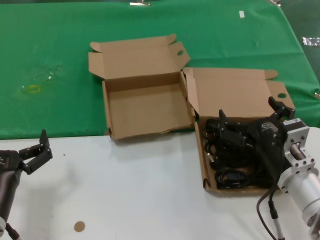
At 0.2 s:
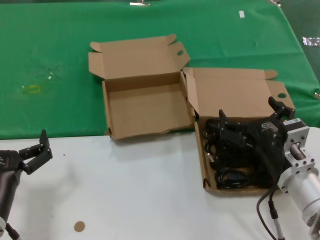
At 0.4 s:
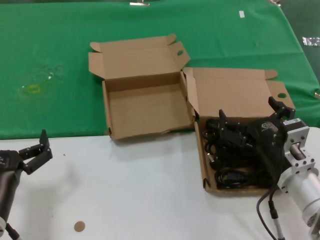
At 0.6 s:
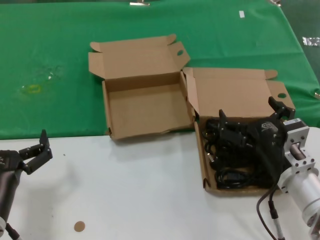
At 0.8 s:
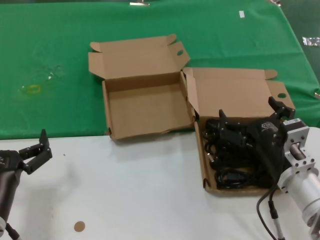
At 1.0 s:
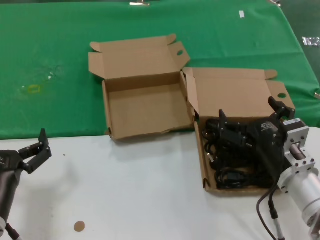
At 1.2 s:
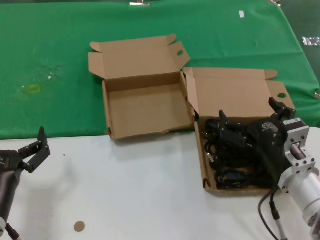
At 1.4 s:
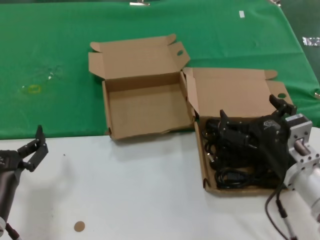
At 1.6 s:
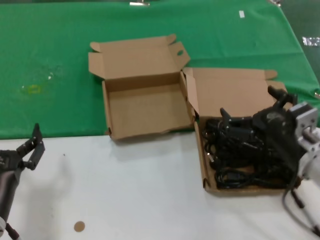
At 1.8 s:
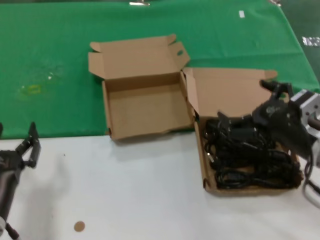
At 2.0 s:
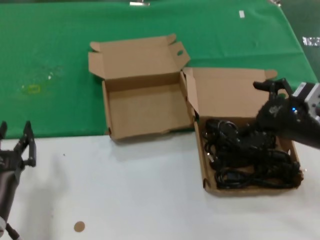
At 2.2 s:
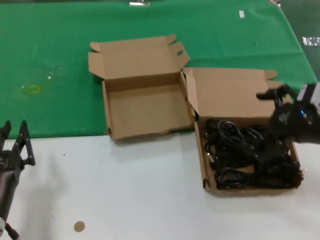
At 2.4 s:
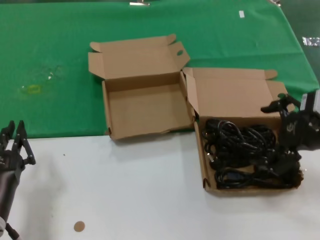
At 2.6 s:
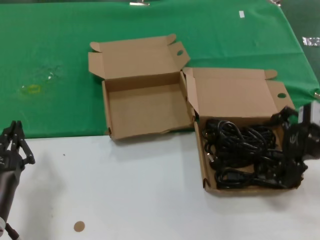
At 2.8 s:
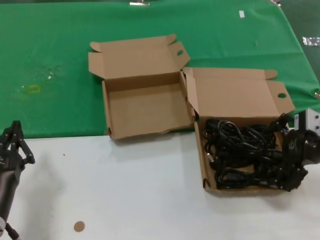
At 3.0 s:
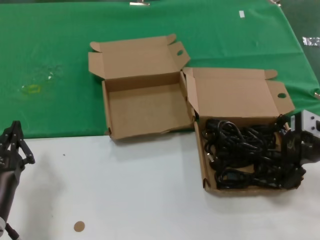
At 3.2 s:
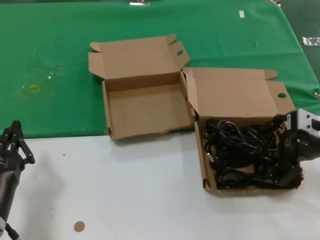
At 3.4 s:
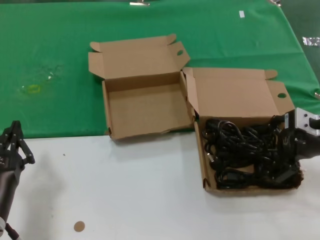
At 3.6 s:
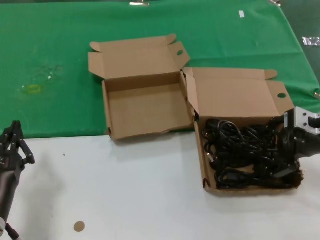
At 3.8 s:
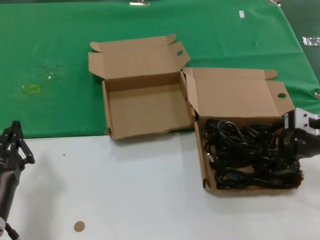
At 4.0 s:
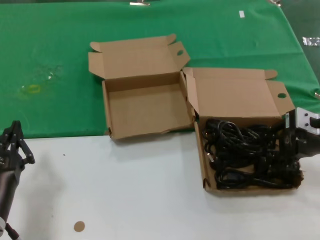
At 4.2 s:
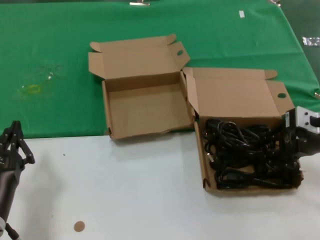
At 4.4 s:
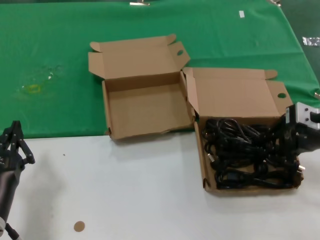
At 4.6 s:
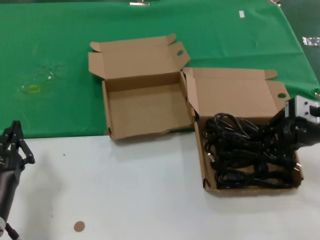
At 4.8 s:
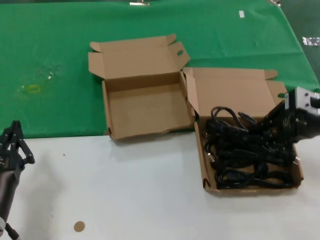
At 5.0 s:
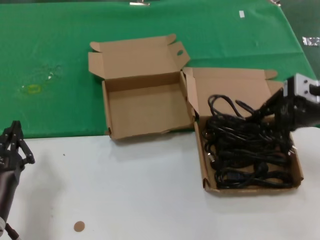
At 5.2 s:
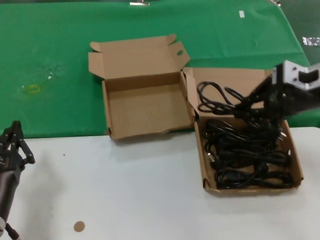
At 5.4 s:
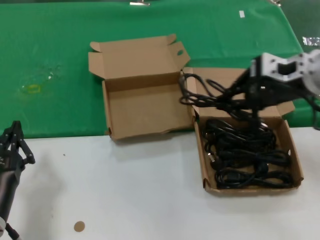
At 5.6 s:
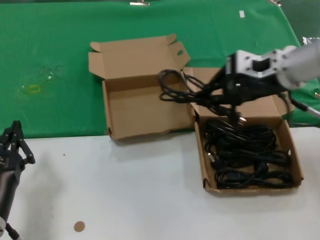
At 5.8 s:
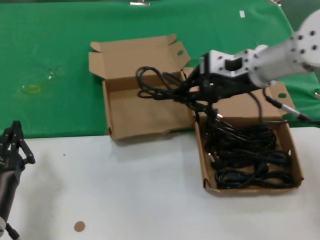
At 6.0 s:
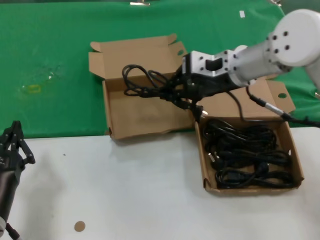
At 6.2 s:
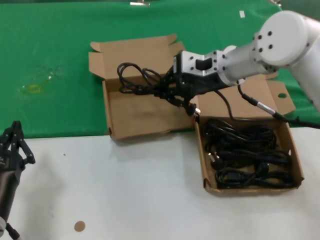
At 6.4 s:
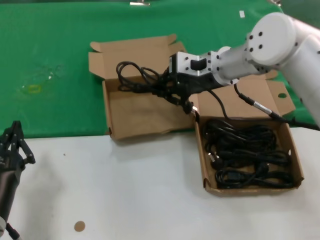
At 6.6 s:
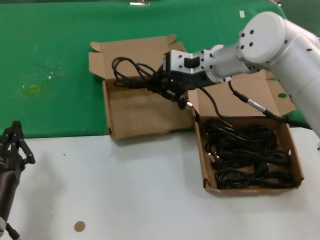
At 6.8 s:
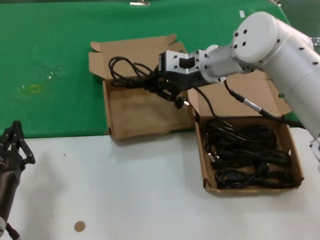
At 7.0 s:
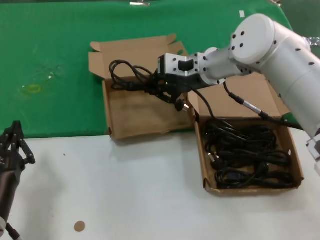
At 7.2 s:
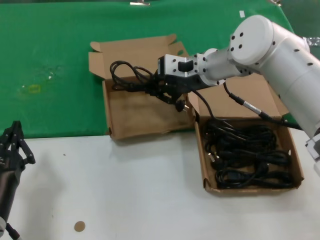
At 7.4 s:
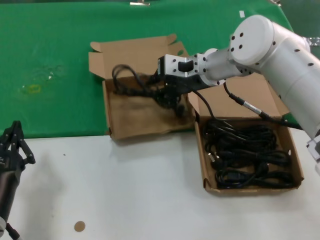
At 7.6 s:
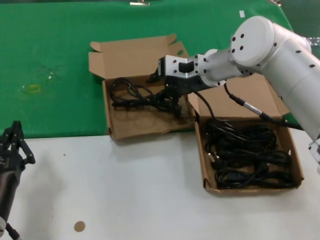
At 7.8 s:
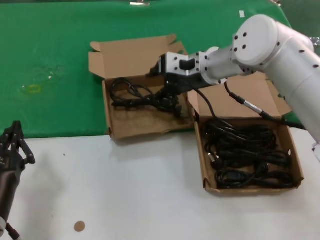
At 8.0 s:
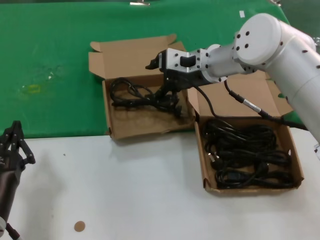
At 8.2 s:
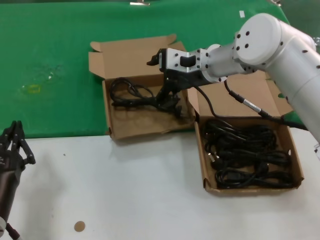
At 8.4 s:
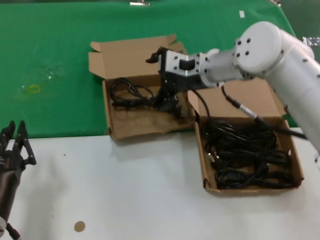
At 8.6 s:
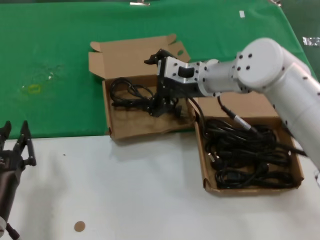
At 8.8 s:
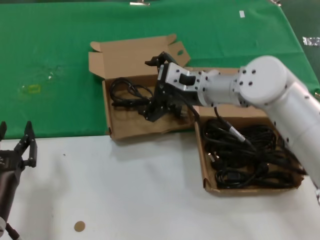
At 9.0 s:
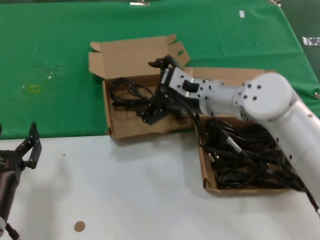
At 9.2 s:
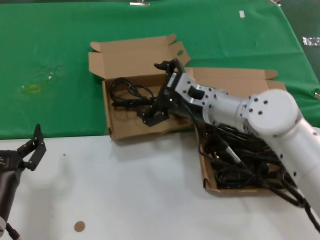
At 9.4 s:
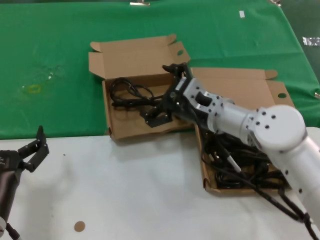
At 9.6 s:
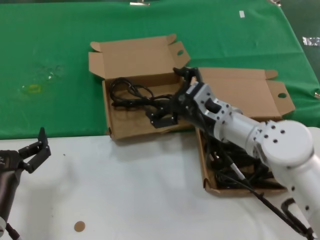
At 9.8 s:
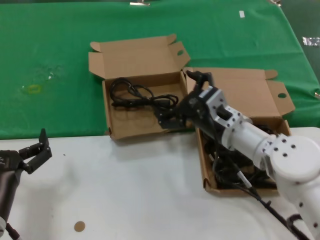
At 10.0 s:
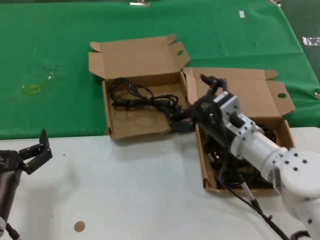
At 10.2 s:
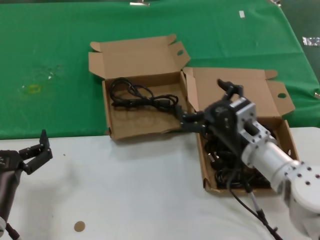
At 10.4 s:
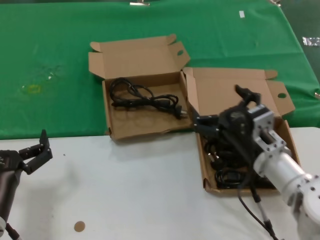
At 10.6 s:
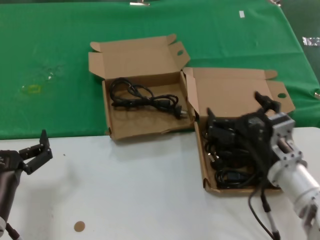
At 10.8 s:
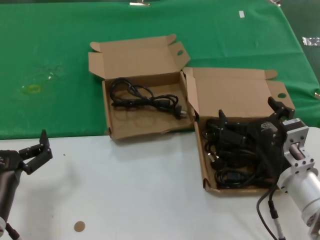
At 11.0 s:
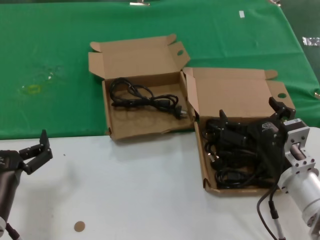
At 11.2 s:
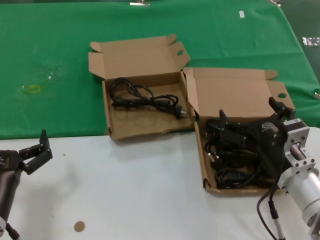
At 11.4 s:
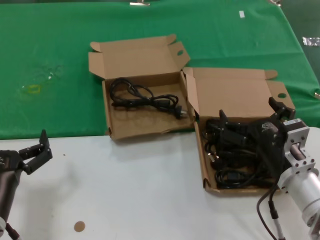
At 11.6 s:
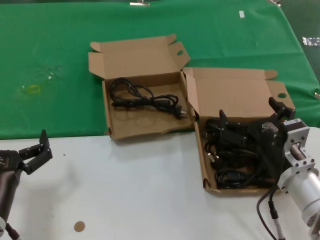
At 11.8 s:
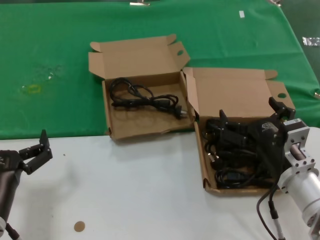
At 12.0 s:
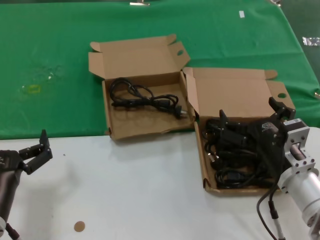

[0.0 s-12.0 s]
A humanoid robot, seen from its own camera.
Task of the whole recording: take the parts from the box containing them and put them into an empty box.
Step, 0.0 to 4.2 s: Grasp the data cable.
Step, 4.4 to 7.4 s: Place the data cable in the another box.
0.0 to 1.6 s: There are only small adjustments of the hands.
1.6 to 3.0 s: The right hand travels upward, to the right and forward by approximately 15 cm.
3.0 to 4.4 s: The hands make only small movements.
4.4 to 6.0 s: The right hand heads to the left, forward and upward, covering roughly 20 cm.
6.0 to 7.6 s: The right hand travels forward by some 5 cm.
7.6 to 9.0 s: The right hand shifts roughly 5 cm downward.
9.0 to 10.4 s: The right hand is displaced backward, downward and to the right by about 20 cm.
10.4 to 12.0 s: The right hand changes place by some 5 cm.

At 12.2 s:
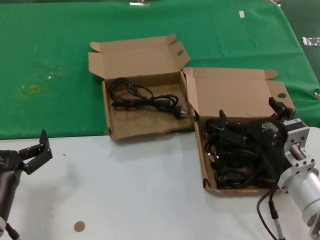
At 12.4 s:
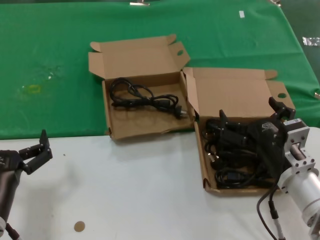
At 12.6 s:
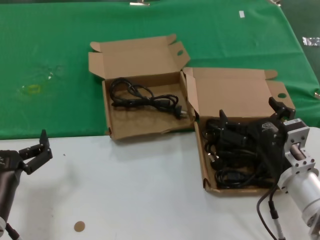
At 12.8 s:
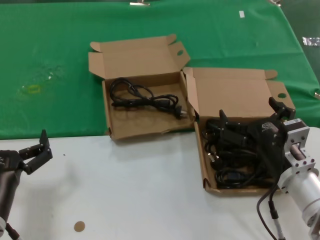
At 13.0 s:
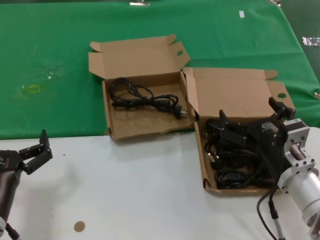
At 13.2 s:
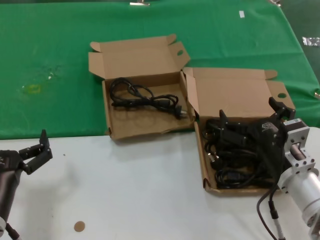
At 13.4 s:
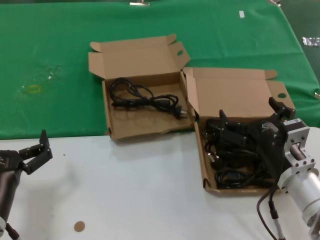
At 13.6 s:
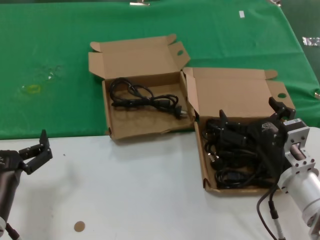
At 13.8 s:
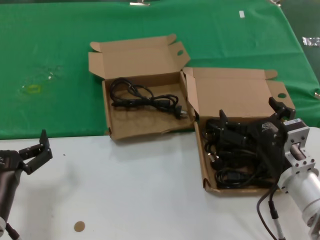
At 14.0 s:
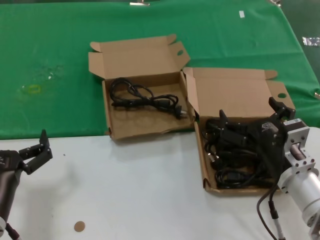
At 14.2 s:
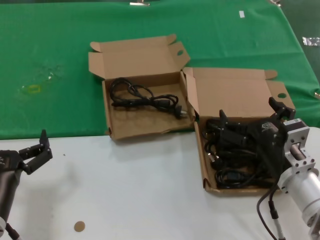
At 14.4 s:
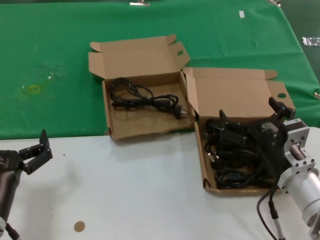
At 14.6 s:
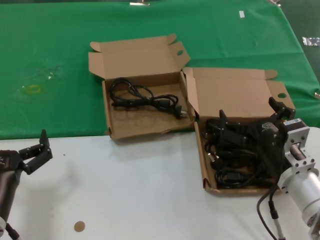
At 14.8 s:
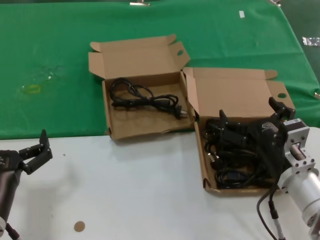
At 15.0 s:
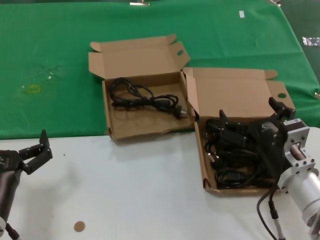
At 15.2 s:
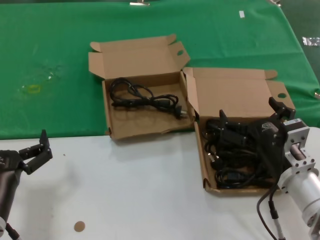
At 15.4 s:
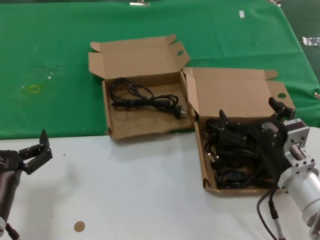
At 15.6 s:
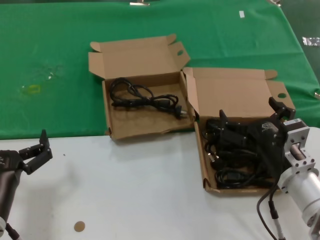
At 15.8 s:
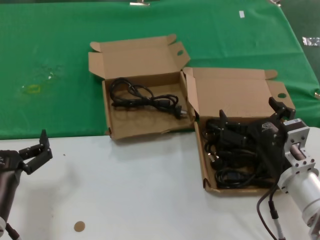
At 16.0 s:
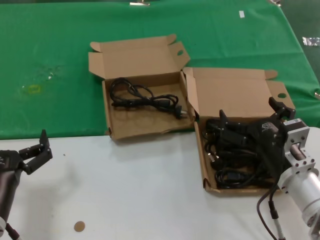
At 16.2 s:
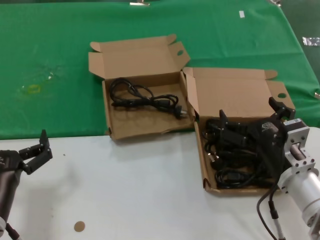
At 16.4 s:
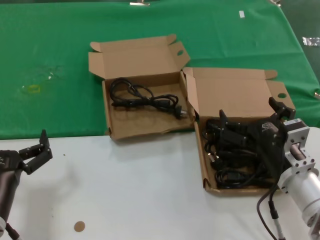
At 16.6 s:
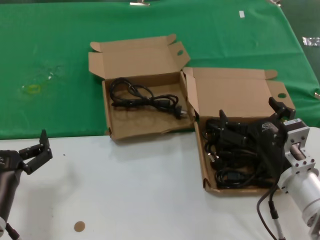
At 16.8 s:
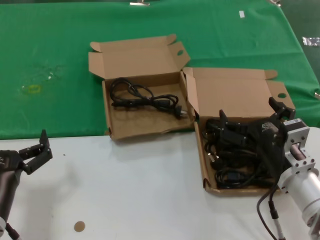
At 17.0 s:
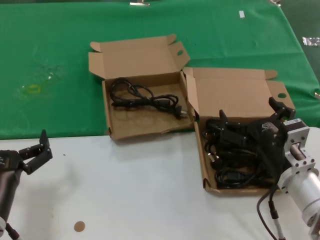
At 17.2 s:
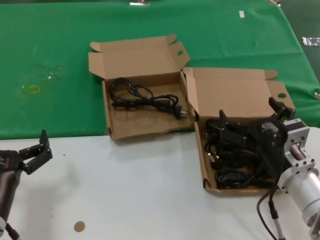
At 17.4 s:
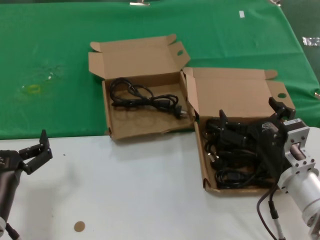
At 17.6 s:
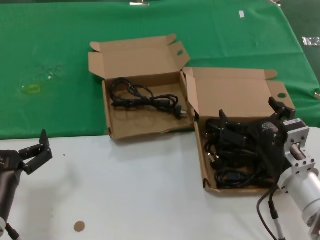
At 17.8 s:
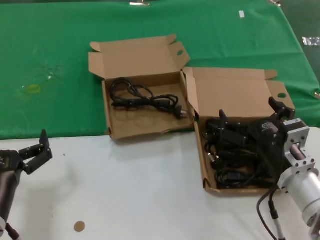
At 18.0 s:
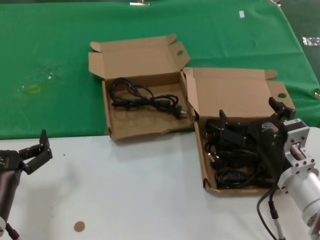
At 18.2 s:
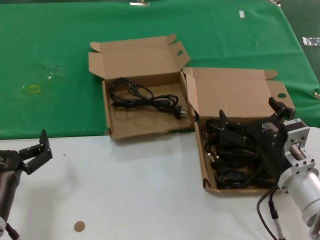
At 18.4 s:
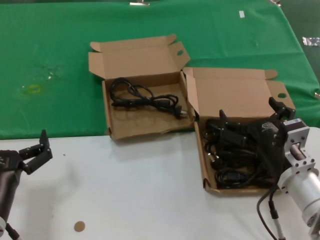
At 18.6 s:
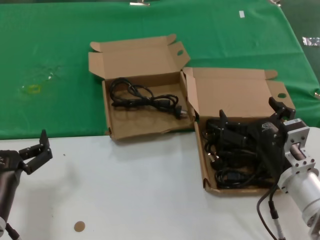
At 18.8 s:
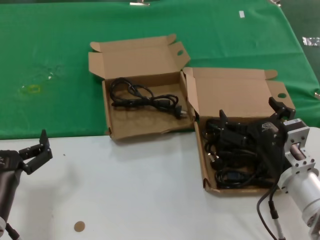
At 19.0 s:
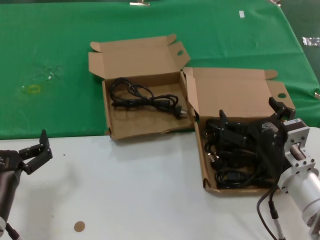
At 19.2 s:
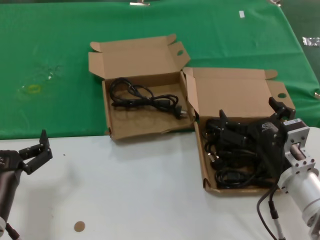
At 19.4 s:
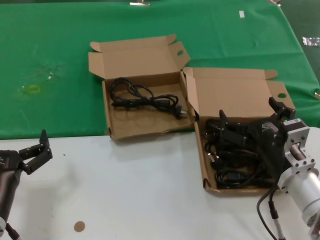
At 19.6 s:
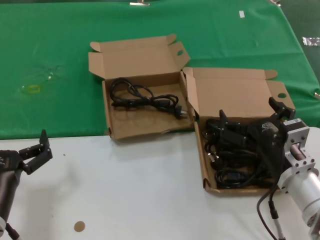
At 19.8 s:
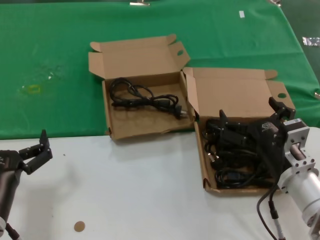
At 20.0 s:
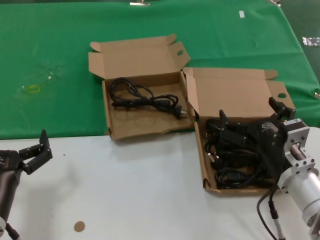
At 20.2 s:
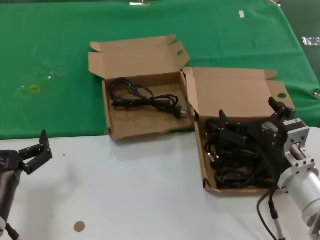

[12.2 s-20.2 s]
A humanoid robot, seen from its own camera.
Task of the whole recording: take the parts from the box containing them and put them into an empty box.
12.2 to 20.2 s: The two hands keep their place.

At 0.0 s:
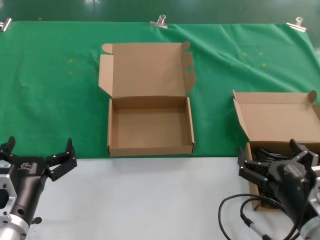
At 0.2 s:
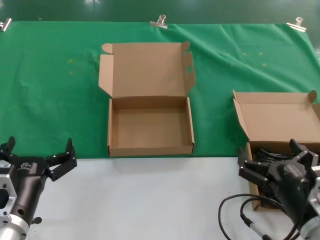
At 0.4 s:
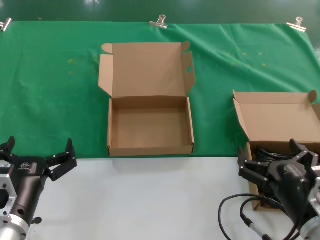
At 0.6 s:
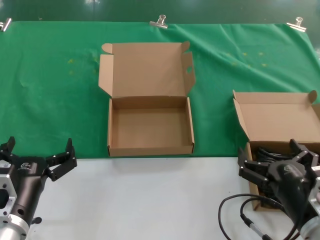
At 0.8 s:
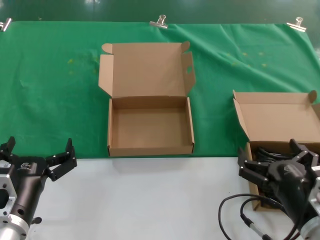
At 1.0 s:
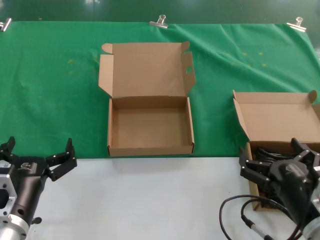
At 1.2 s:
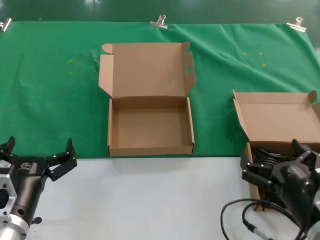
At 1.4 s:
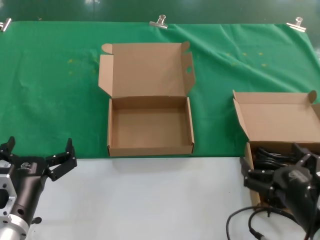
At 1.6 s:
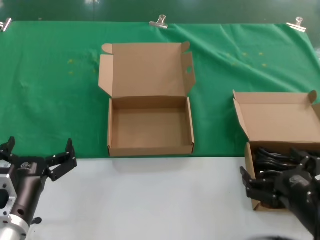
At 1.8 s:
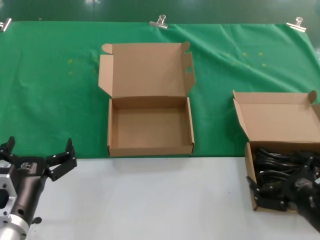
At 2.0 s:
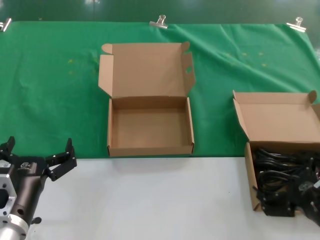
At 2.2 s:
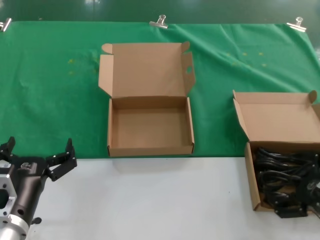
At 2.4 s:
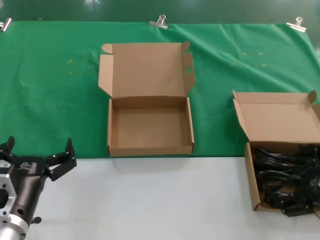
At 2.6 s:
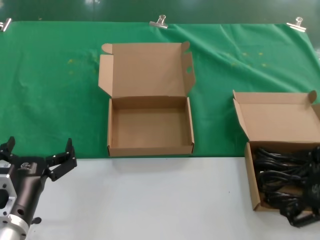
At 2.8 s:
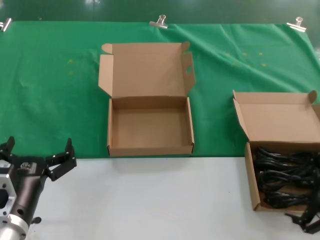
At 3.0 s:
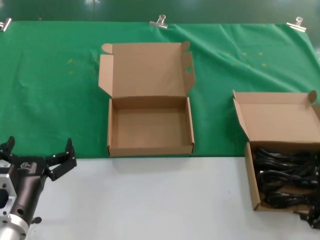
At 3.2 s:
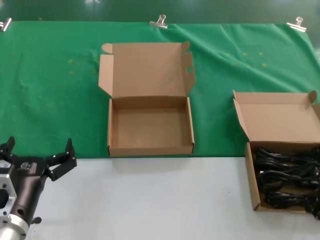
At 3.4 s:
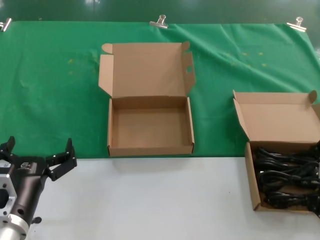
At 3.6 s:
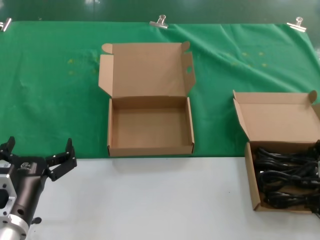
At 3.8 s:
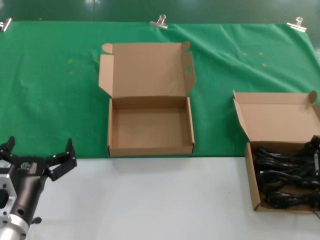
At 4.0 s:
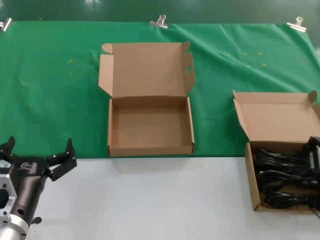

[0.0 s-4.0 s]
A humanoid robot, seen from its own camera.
Task of the whole recording: take the parts from the box containing them and put them into an empty box.
0.0 to 1.4 s: The hands move only a little.
1.4 to 2.6 s: The right hand is displaced to the right and upward by approximately 10 cm.
2.6 to 4.0 s: The right hand is displaced forward and upward by approximately 15 cm.
